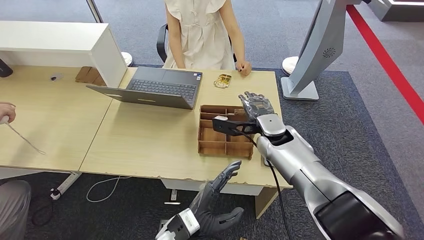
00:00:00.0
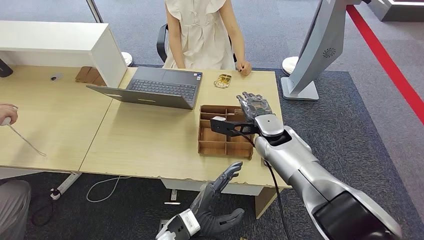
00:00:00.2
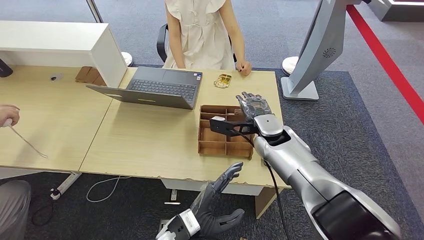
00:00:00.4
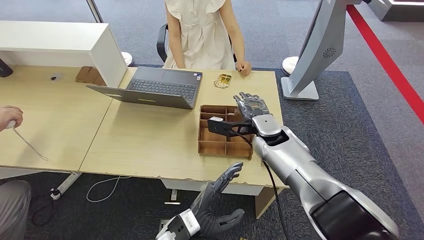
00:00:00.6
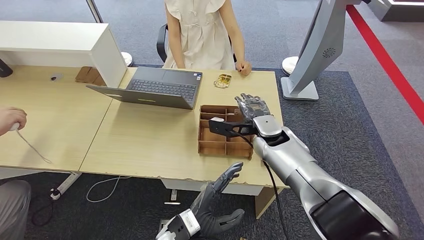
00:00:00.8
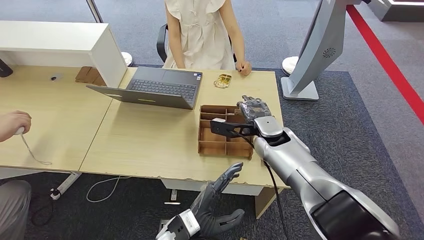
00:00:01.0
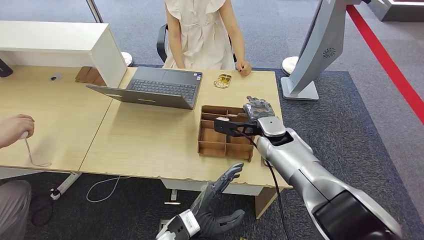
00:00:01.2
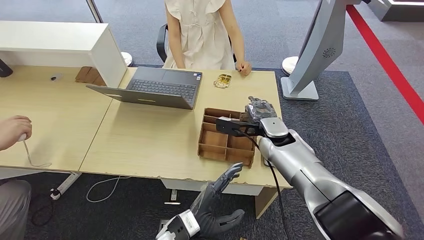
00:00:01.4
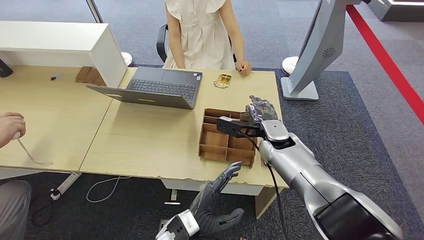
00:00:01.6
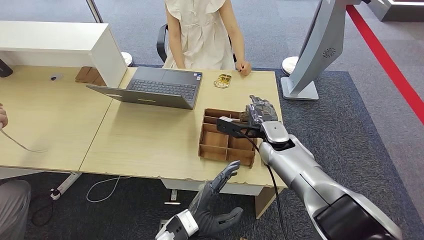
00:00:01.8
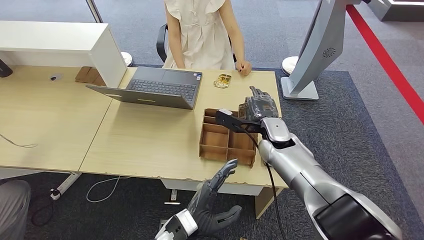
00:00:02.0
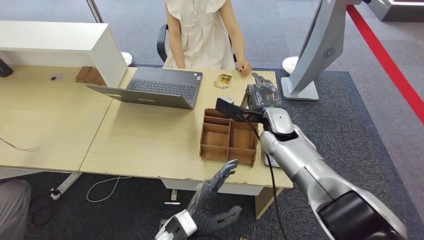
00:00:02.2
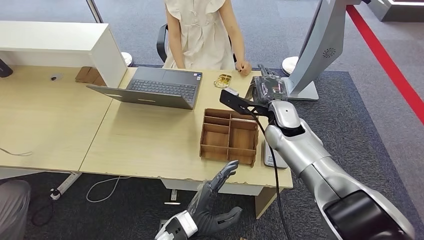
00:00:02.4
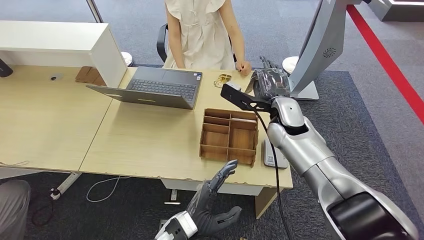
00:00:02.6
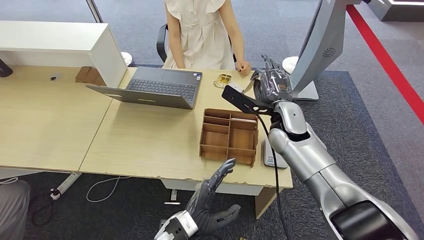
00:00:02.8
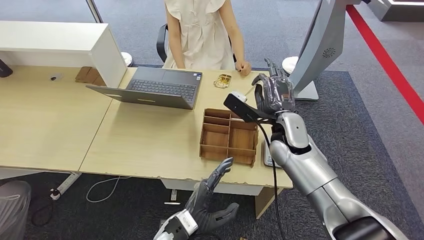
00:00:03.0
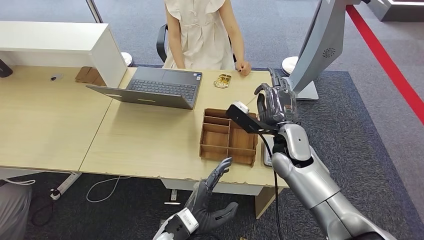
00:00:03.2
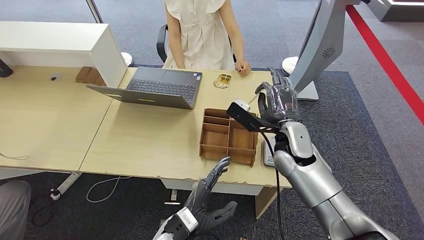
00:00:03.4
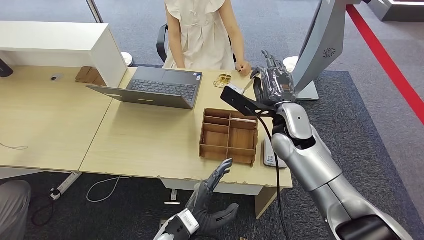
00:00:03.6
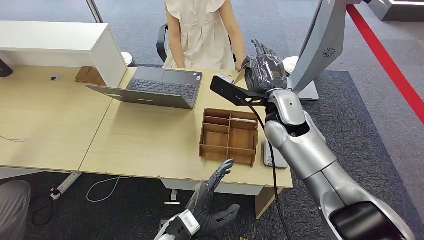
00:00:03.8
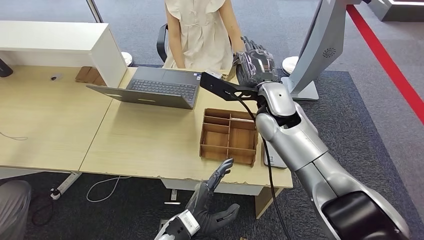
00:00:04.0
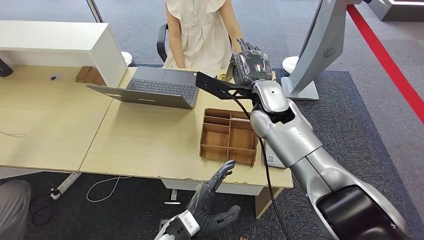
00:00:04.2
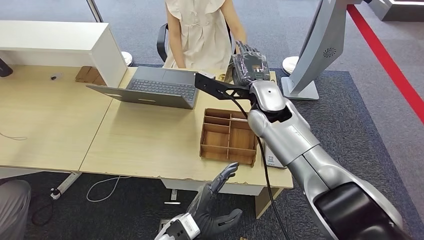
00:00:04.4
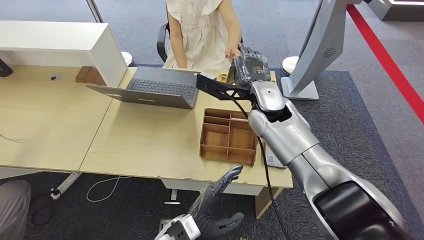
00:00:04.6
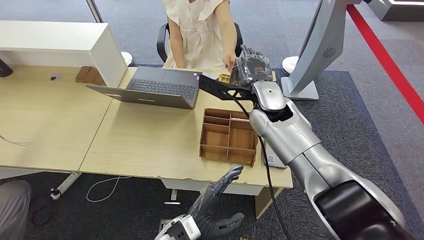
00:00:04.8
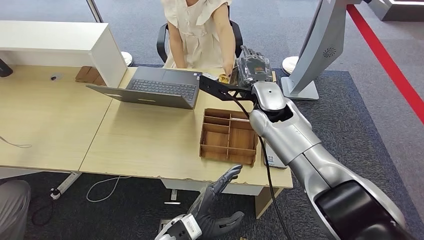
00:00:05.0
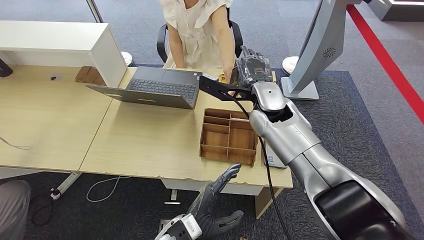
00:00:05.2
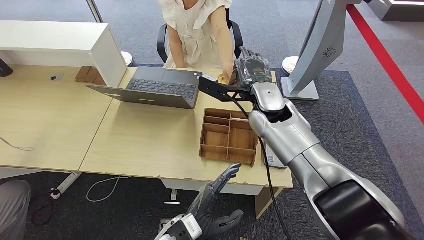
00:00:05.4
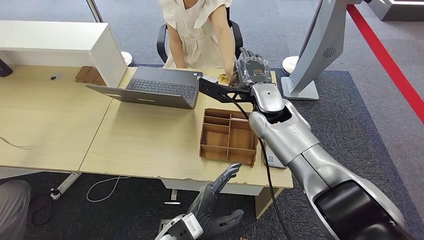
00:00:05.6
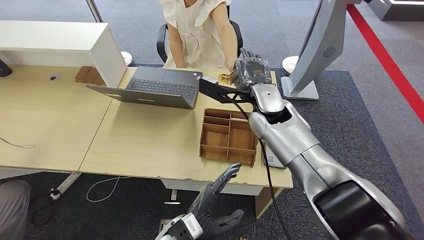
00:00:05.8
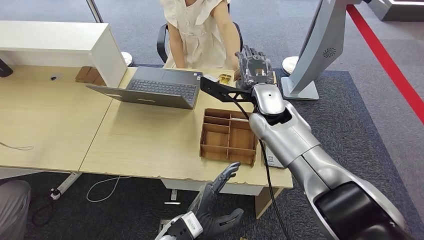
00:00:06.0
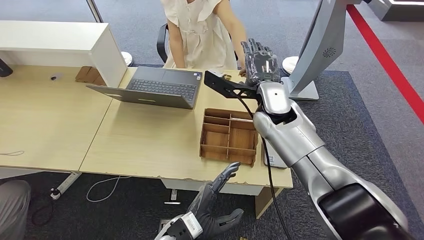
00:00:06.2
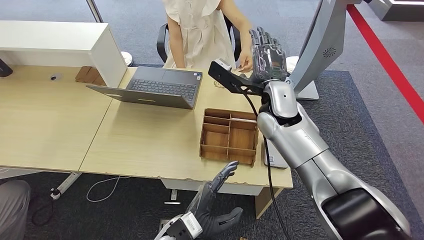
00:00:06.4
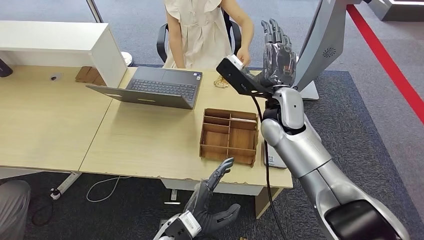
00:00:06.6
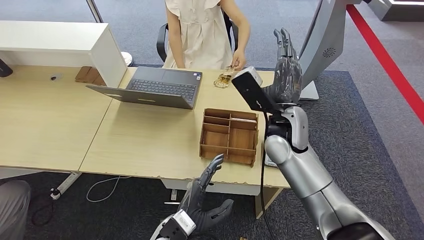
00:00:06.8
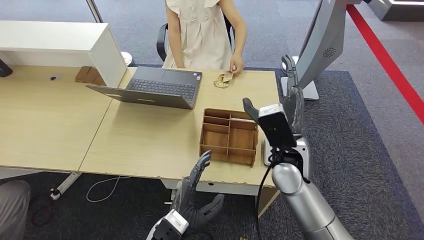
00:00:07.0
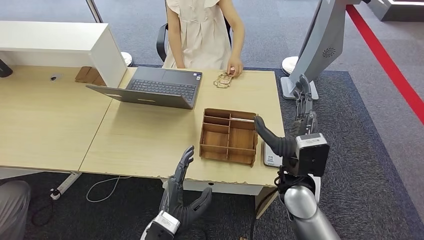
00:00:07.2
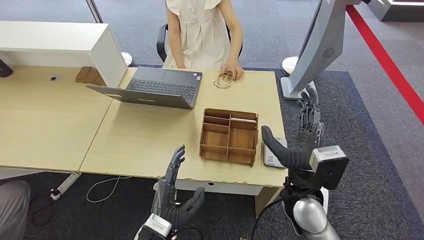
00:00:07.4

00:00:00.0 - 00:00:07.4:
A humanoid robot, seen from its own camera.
Step, 00:00:01.0 - 00:00:03.4: Pick up the room key from the key card box.
Step, 00:00:03.6 - 00:00:07.4: Hand the room key to the person.
00:00:00.0 - 00:00:01.4: There are only small adjustments of the hands.
00:00:01.4 - 00:00:03.0: The right hand moves roughly 5 cm.
00:00:03.0 - 00:00:04.4: The right hand moves upward and to the left, roughly 10 cm.
00:00:04.4 - 00:00:06.0: The hands make only small movements.
00:00:06.0 - 00:00:07.4: The right hand travels backward and downward by some 20 cm. The left hand changes place by some 5 cm.
